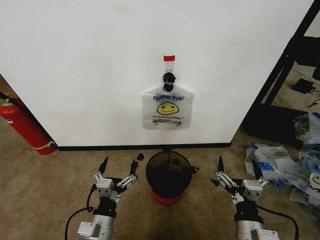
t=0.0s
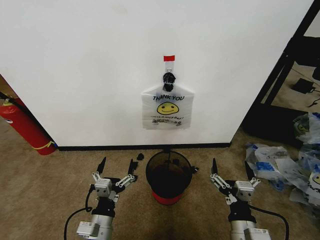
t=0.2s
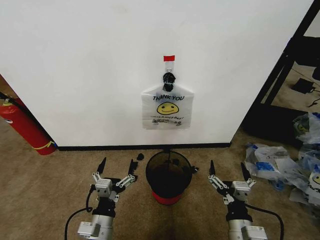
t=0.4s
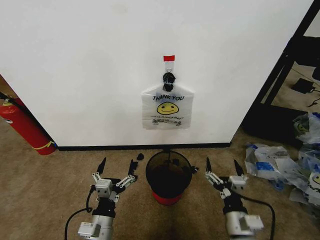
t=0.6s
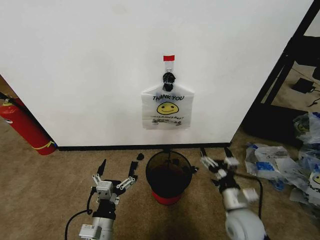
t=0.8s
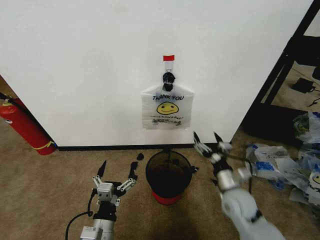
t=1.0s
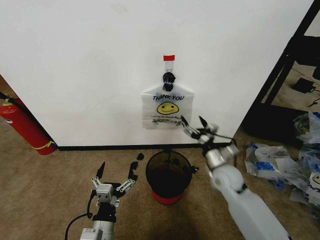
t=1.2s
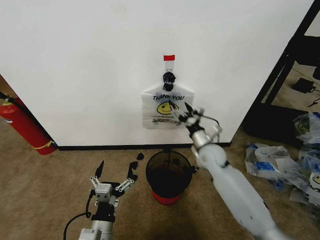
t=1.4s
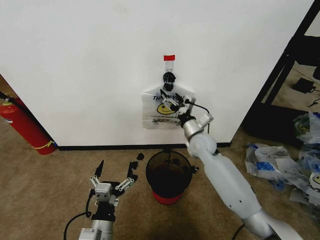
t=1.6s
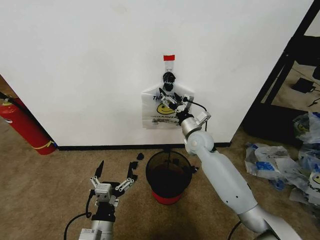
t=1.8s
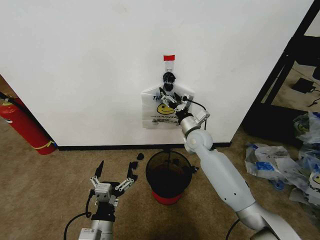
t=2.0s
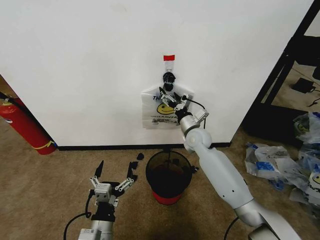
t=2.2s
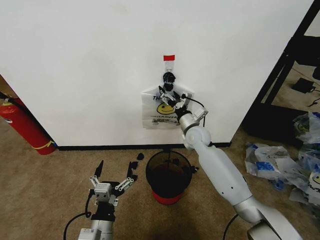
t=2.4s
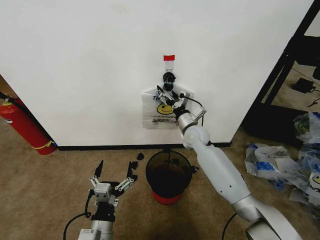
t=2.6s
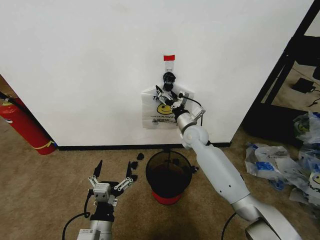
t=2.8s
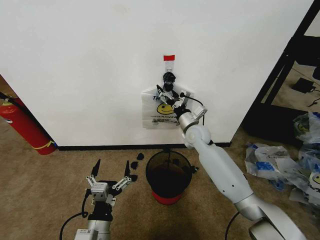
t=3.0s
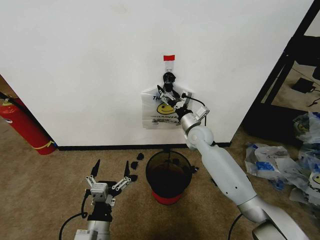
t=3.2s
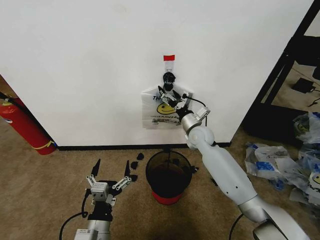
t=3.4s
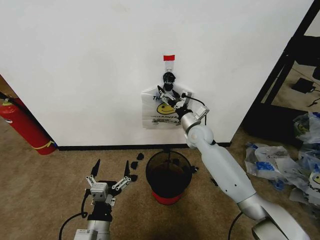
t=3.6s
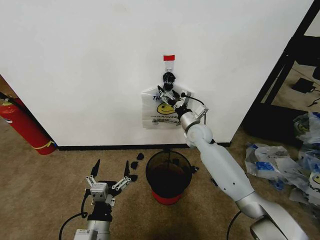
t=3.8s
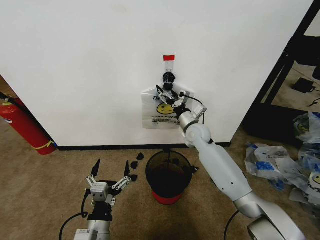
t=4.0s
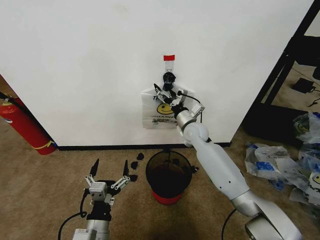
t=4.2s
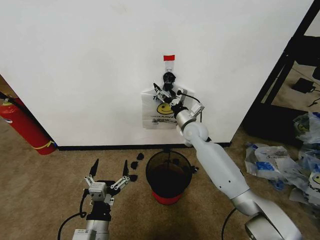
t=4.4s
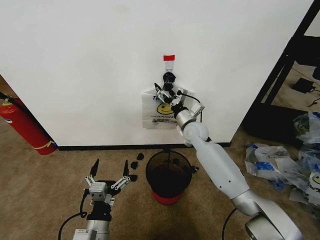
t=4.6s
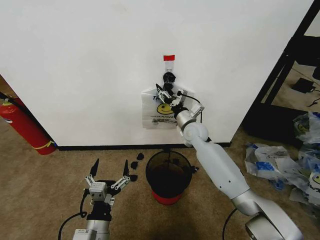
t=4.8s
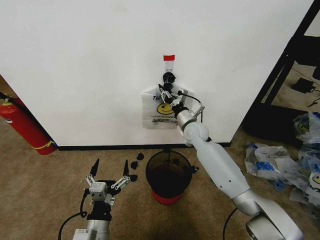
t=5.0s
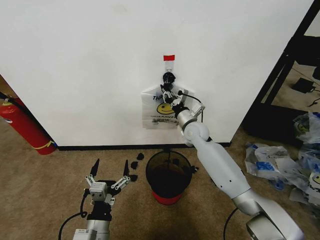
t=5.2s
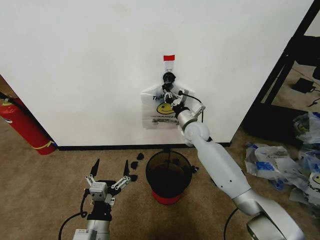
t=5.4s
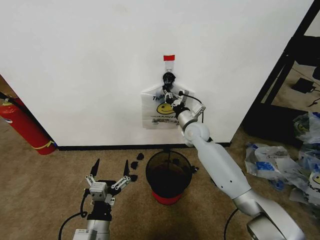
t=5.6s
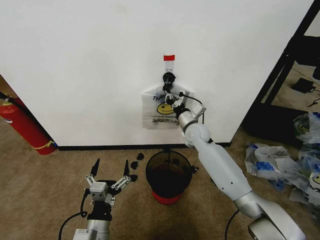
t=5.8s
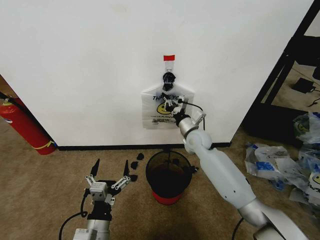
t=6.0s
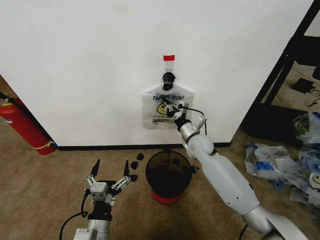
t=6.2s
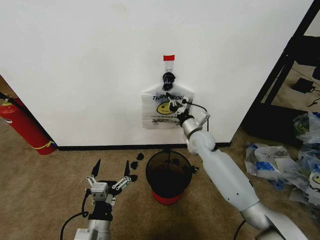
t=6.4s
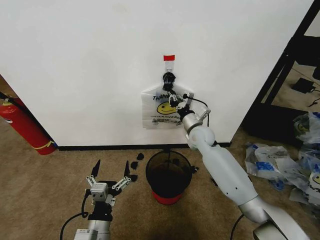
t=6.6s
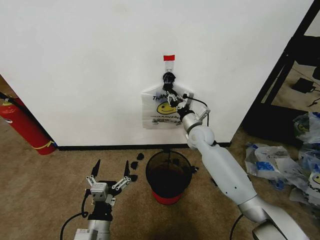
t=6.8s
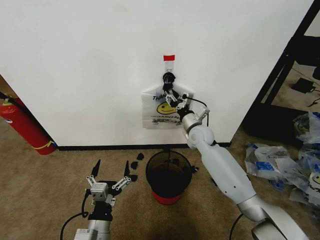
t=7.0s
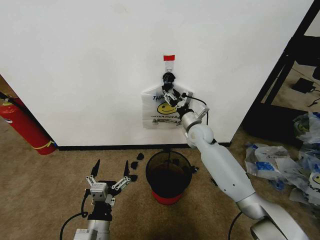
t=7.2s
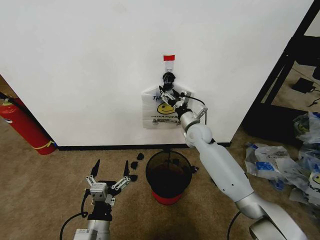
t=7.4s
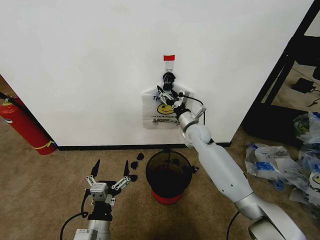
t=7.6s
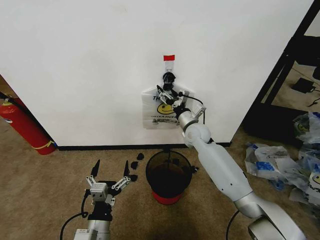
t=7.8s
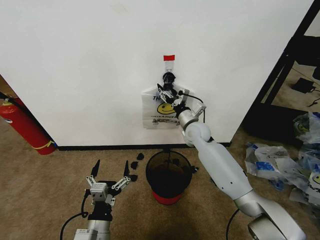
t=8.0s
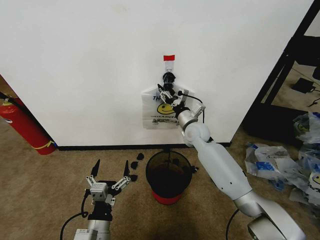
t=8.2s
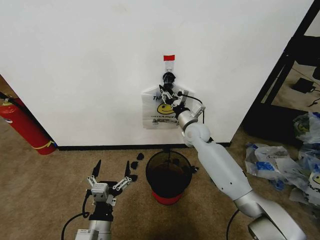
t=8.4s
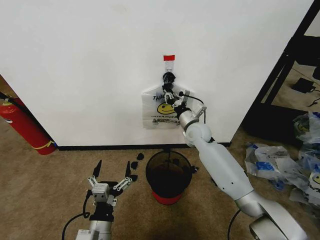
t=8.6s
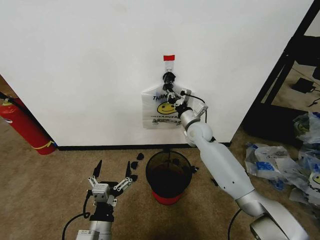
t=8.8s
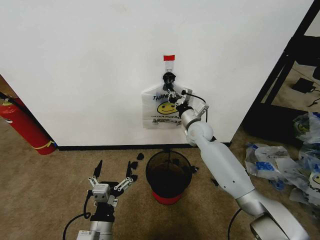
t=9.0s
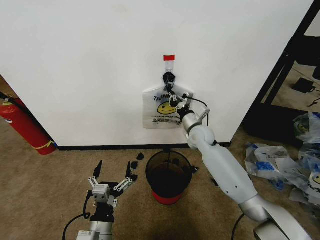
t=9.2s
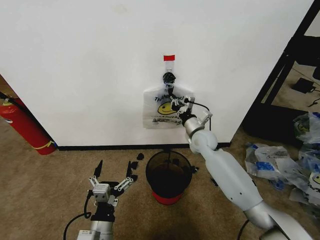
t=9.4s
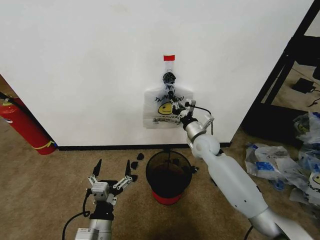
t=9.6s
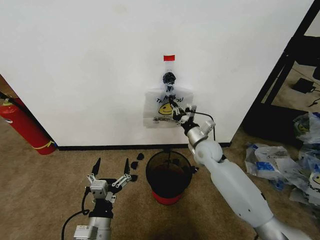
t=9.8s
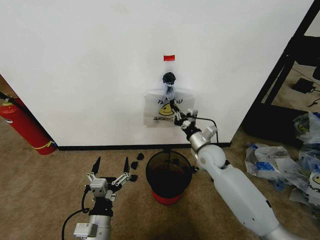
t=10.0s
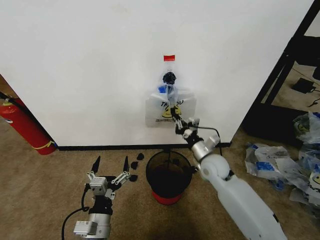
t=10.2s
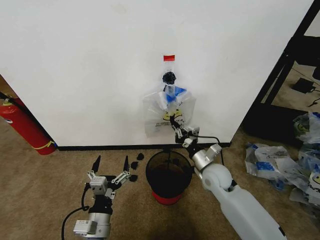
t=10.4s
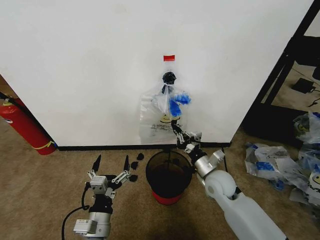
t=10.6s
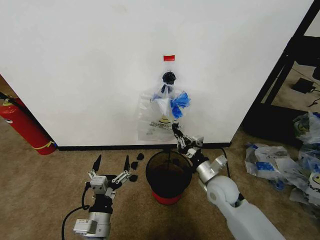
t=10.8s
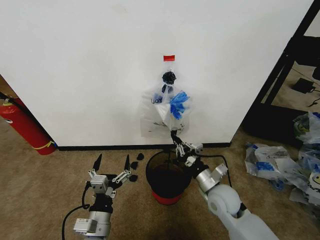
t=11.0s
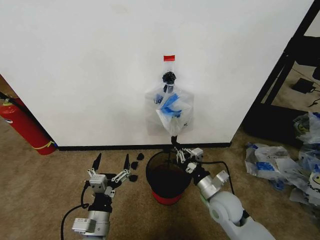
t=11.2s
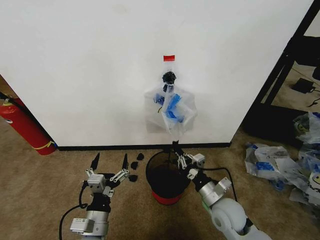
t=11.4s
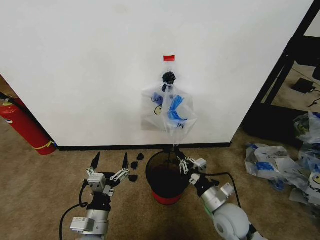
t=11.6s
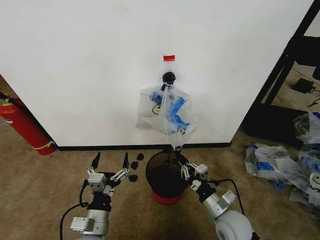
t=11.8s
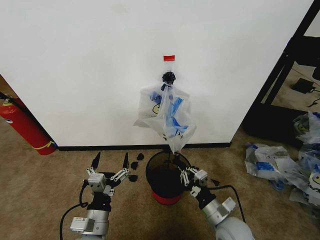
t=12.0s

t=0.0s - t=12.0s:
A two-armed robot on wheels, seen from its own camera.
Task of the whole recording: Pick up the garbage bag from the wall and place it over the trash bin.
t=1.6s - t=4.4s: The grippers move only a little.
t=4.4s - t=6.0s: The right gripper closes its fingers.
t=6.0s - t=7.6s: The right gripper opens.
t=7.6s - t=9.0s: The right gripper closes its fingers.
t=9.0s - t=10.4s: The right gripper goes roughly 15 cm backward and downward.
t=10.4s - t=12.0s: The right gripper heads backward, covering about 15 cm.

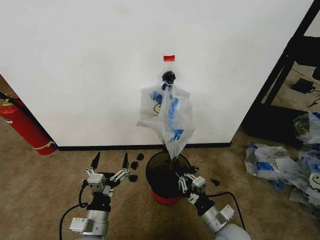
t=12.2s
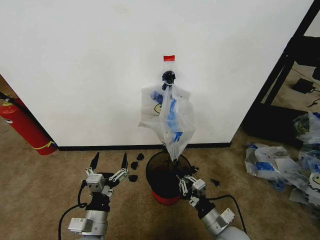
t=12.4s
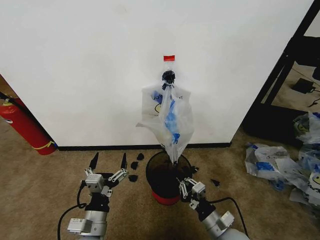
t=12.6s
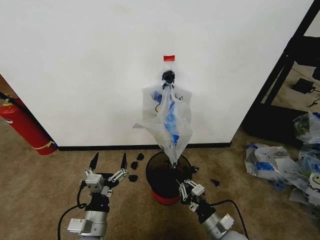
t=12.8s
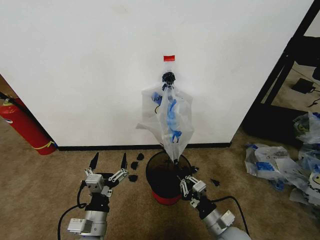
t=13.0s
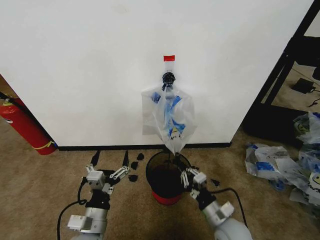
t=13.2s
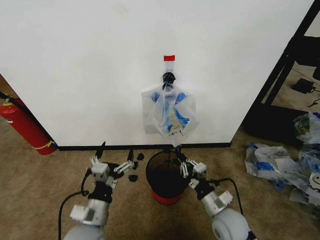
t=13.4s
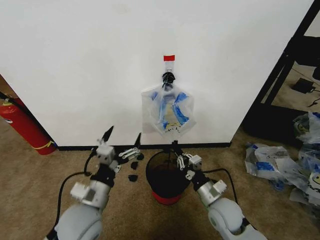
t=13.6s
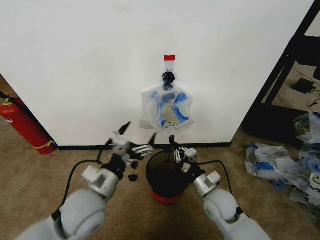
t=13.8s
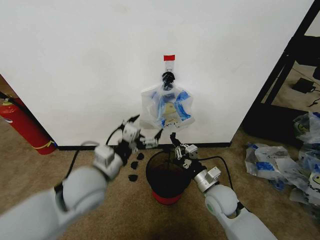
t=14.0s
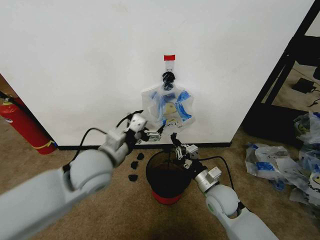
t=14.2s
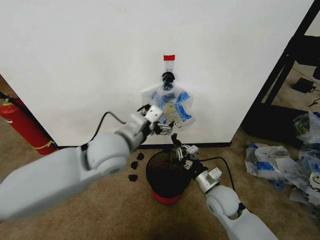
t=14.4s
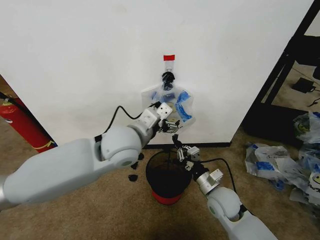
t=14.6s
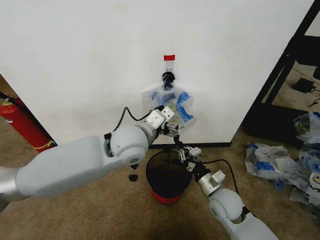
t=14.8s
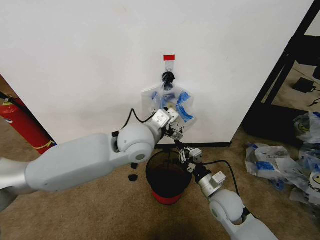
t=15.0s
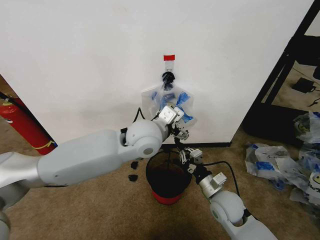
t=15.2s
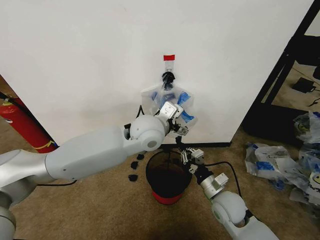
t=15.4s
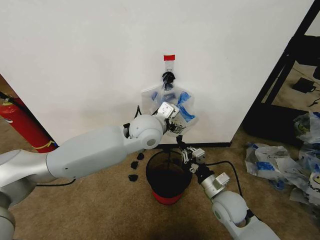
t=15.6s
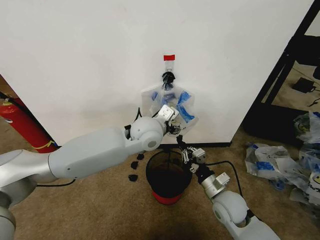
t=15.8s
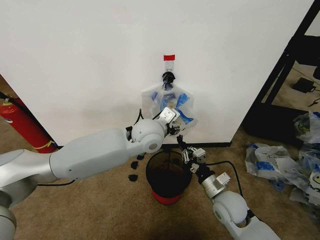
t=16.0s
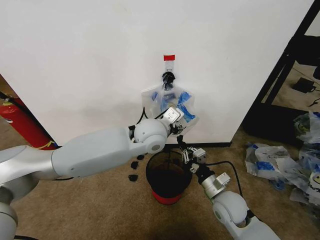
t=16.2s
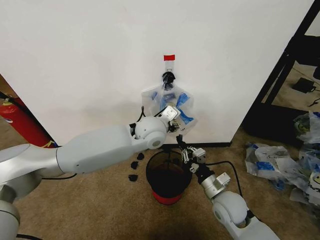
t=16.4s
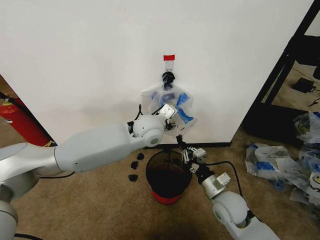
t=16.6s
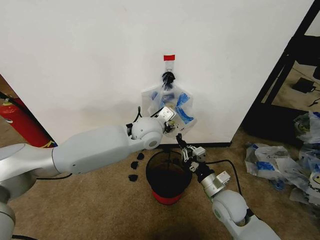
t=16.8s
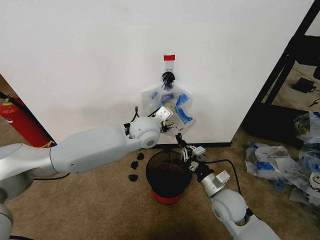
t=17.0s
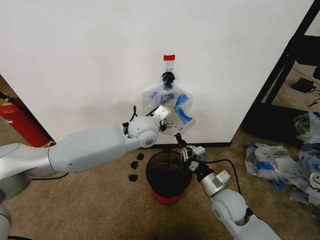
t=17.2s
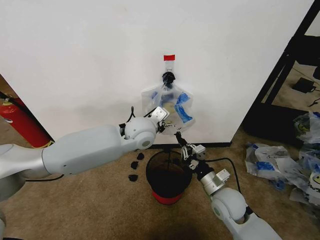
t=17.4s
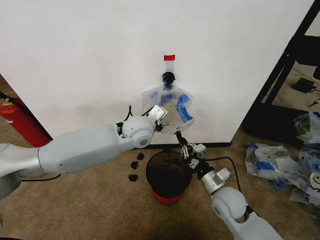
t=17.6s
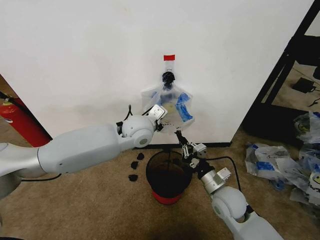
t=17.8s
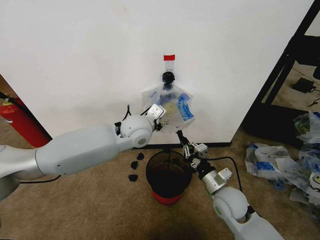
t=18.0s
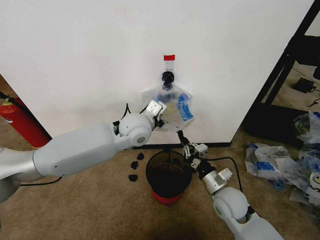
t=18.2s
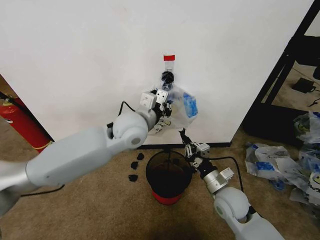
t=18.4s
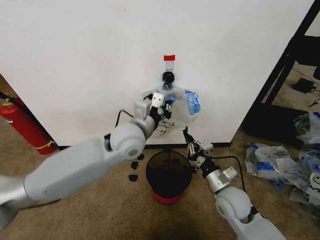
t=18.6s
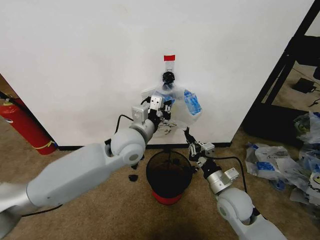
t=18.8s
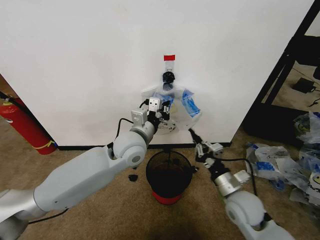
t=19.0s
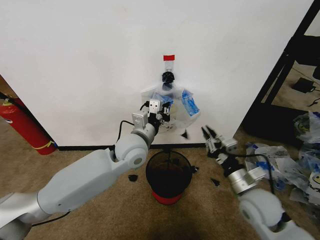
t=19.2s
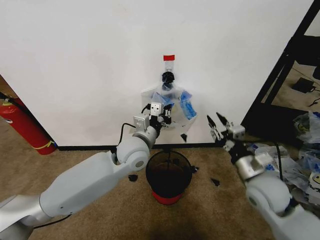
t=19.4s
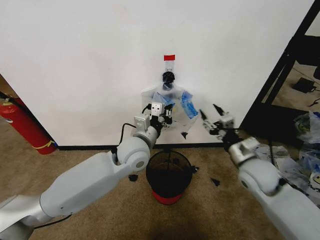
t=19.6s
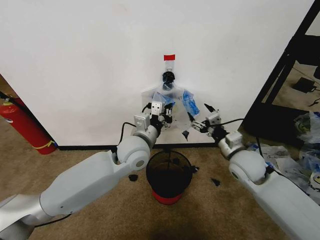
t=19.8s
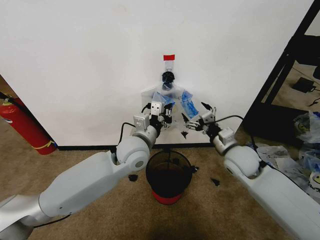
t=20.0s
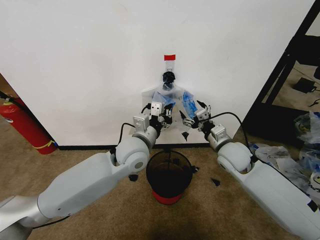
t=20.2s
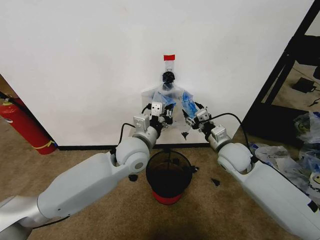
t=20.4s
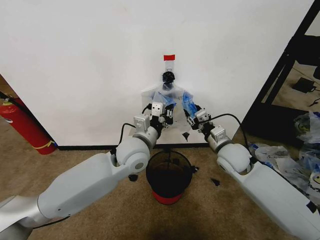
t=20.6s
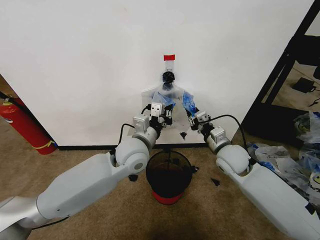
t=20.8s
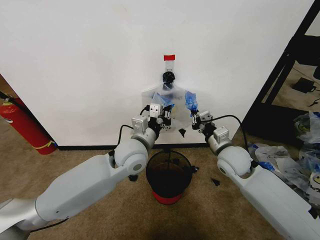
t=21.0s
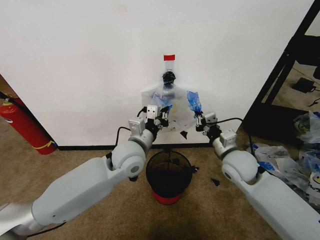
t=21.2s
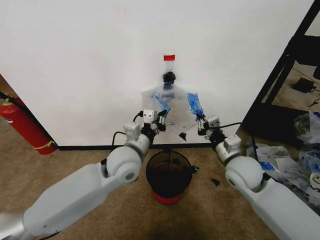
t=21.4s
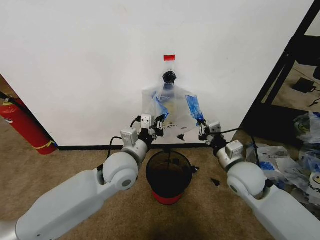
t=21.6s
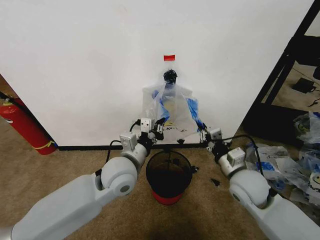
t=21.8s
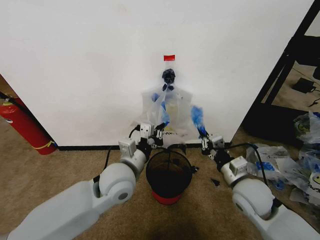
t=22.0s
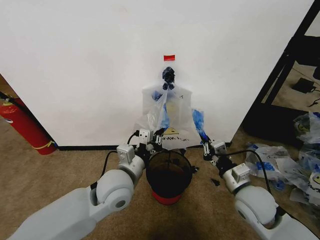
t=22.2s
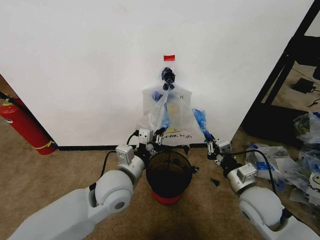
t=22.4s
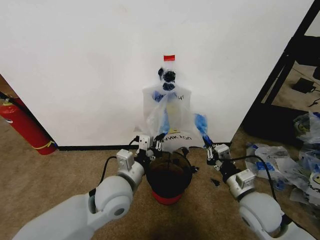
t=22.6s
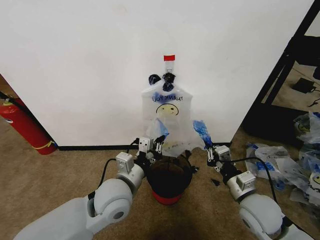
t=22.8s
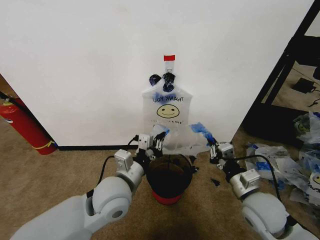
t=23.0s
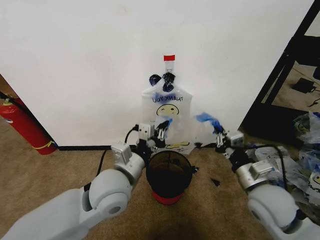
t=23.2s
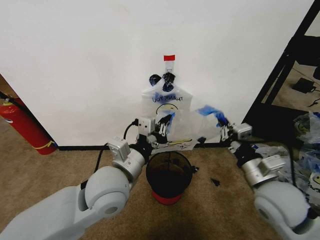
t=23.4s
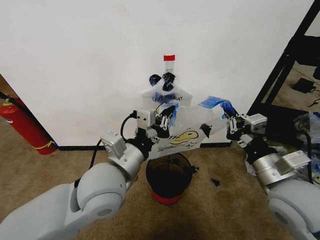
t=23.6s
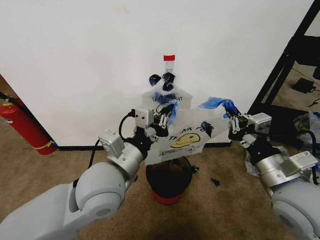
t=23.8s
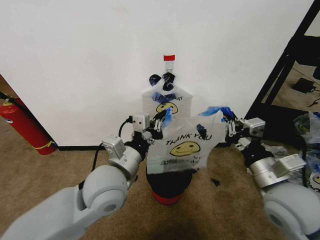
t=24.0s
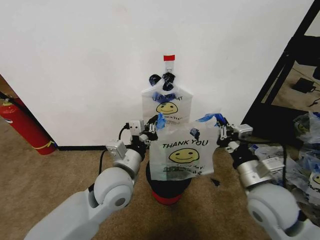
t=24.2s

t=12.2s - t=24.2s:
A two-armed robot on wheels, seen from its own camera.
Task of the whole recording: Pick up the garbage bag from the wall and place it over the trash bin.
t=12.2s - t=13.8s: The left gripper shifts approximately 15 cm upward and forward. The right gripper heads forward, covering roughly 10 cm.
t=13.8s - t=15.2s: The left gripper goes approximately 25 cm forward, to the right and upward.
t=15.2s - t=16.6s: The left gripper moves forward, some 5 cm, and closes.
t=16.6s - t=18.2s: The left gripper closes its fingers.
t=18.2s - t=19.8s: The left gripper goes approximately 5 cm downward, while the right gripper goes roughly 15 cm upward and forward, and opens its fingers.
t=19.8s - t=21.2s: The right gripper closes.
t=21.2s - t=22.6s: The two grippers go some 10 cm backward.
t=22.6s - t=24.2s: The left gripper travels upward and back again, some 10 cm each way, while the right gripper shifts some 10 cm upward.
